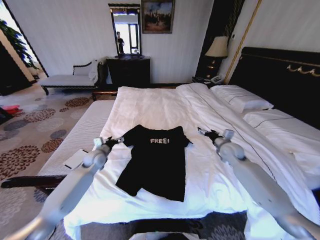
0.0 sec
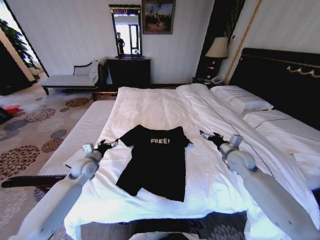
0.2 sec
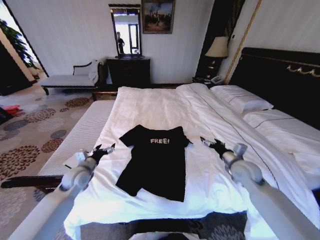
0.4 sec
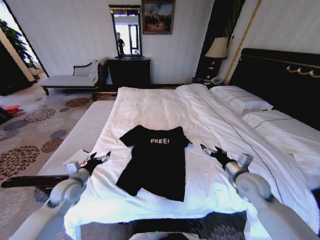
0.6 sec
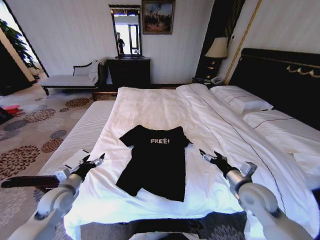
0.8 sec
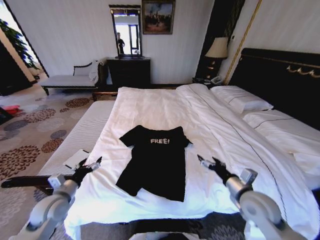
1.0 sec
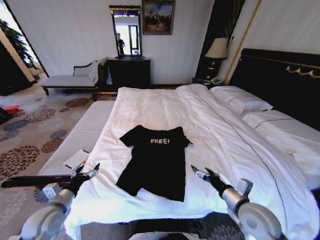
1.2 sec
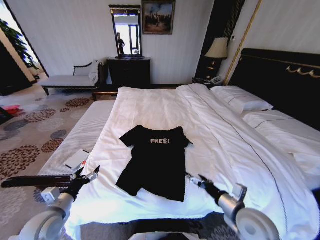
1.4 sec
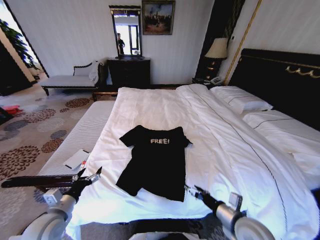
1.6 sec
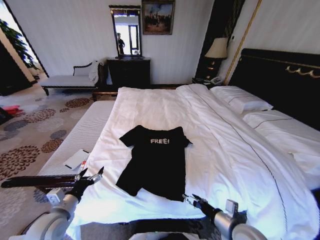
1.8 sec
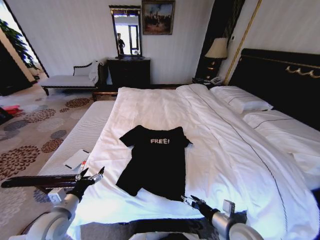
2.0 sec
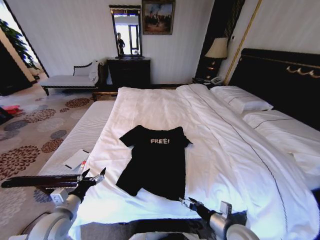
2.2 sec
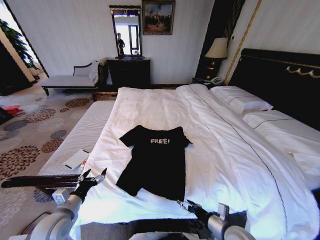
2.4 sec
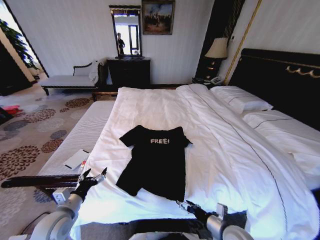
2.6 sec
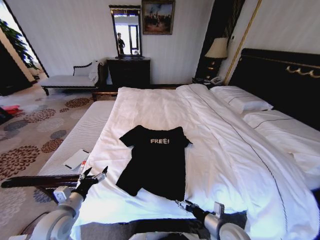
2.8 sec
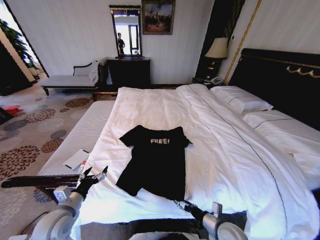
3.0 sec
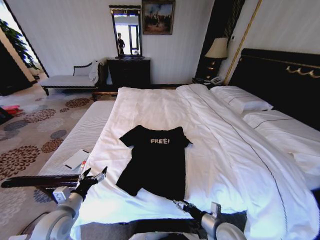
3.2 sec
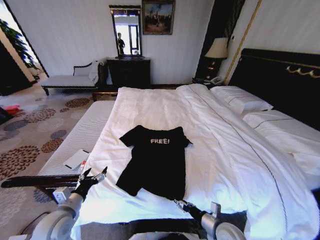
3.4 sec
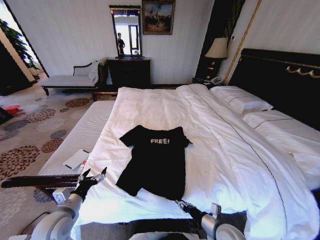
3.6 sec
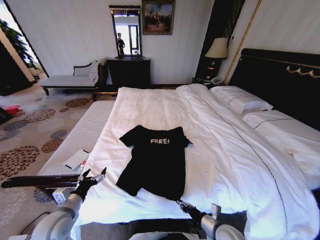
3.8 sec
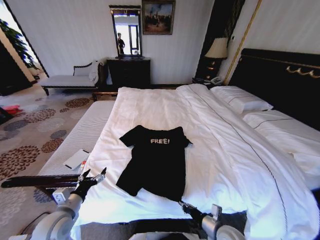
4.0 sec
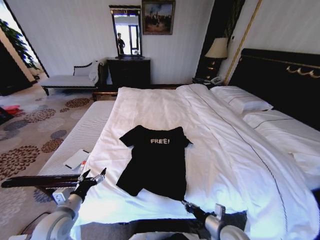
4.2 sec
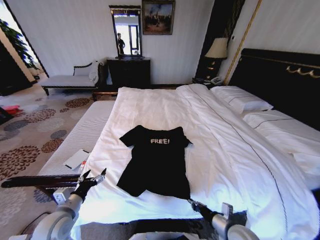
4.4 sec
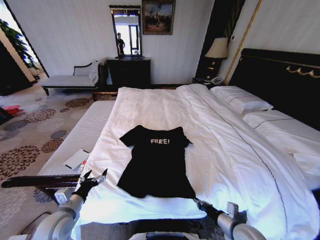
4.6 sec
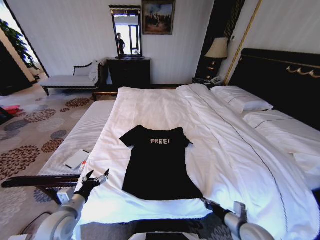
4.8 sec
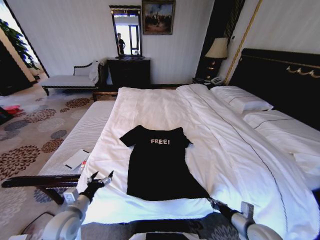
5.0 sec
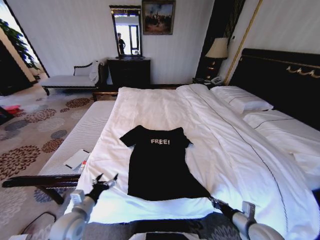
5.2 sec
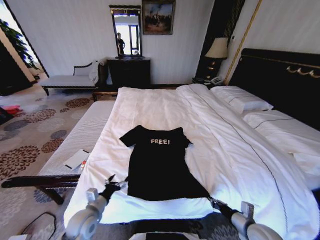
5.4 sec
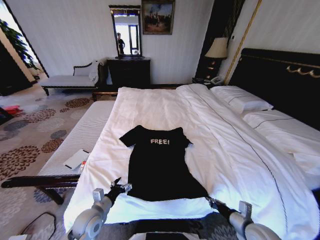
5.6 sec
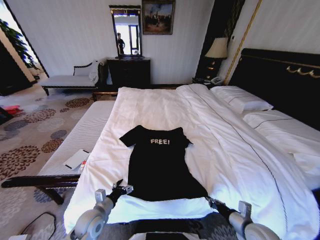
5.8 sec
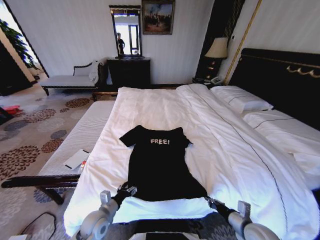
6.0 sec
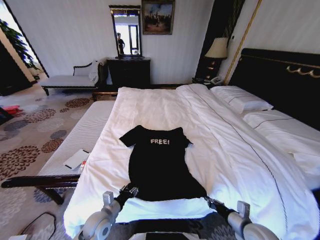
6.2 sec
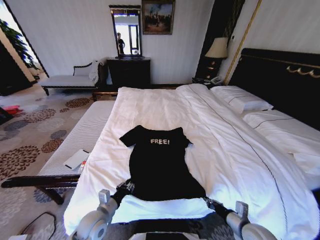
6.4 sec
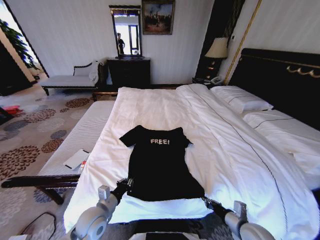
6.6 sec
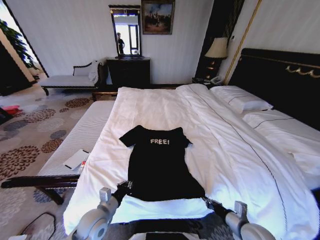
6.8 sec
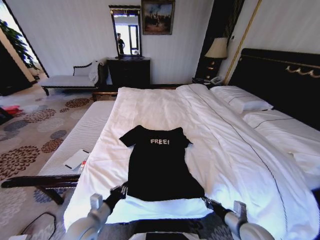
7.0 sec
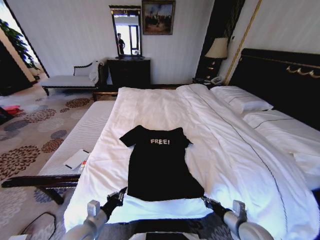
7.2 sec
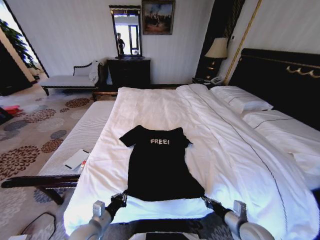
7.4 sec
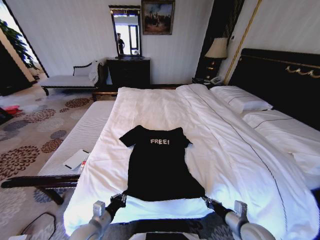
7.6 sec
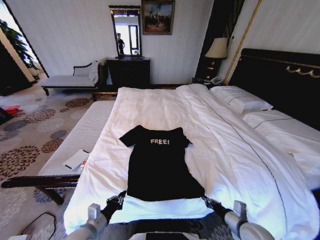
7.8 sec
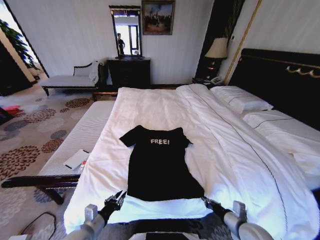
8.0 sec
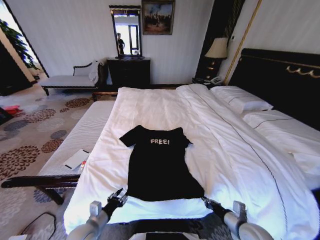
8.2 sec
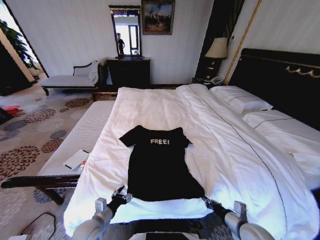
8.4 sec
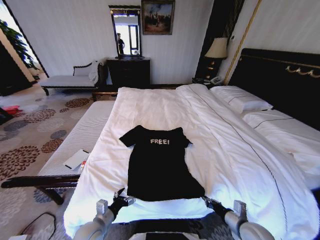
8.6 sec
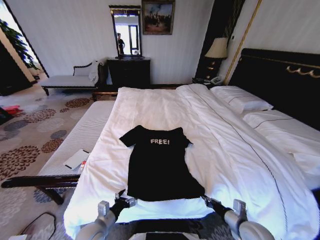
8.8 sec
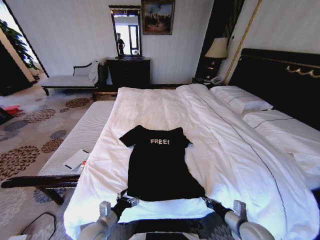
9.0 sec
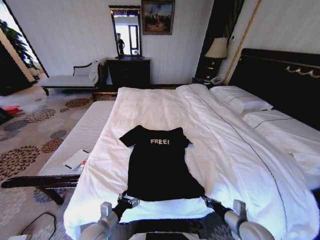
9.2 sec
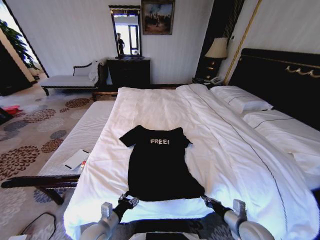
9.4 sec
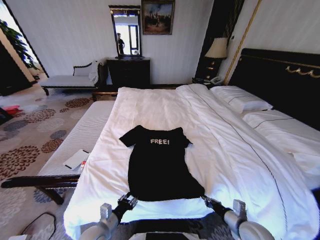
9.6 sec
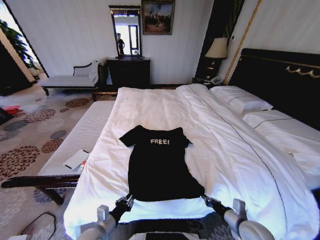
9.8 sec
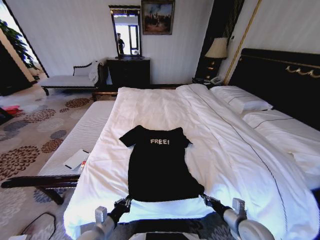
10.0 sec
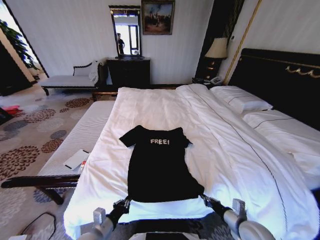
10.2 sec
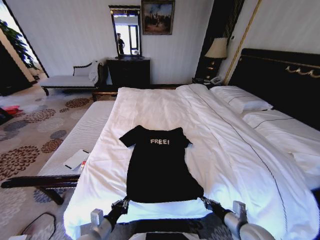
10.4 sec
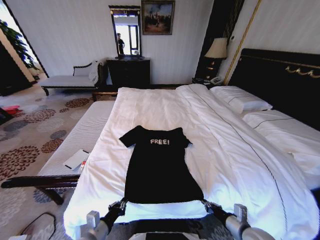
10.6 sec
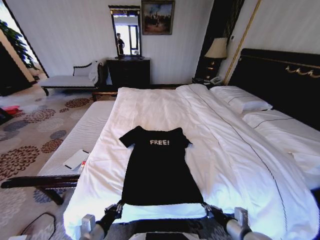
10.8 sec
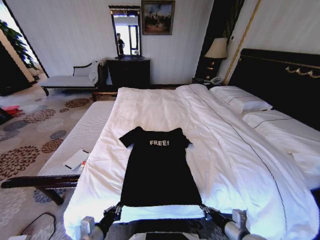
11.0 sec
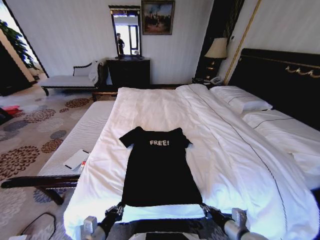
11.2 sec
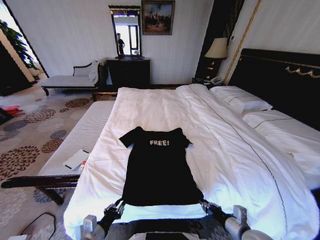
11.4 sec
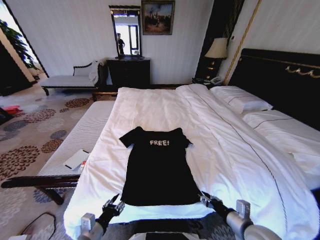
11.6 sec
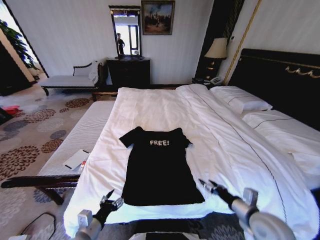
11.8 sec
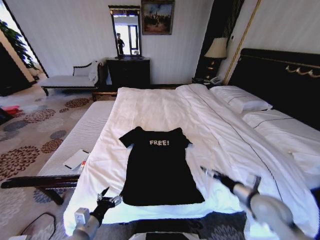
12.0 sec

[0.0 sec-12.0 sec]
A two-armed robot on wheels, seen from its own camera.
Task of the whole recording: Fold the clothes on the bed.
0.0 sec to 1.6 sec: Both grippers move backward, some 25 cm.
1.6 sec to 3.0 sec: The right gripper shifts about 10 cm downward.
3.0 sec to 4.4 sec: The right gripper closes up.
4.4 sec to 6.0 sec: The right gripper heads to the right, covering approximately 5 cm, while the left gripper moves to the right and downward, roughly 15 cm.
6.0 sec to 7.6 sec: The left gripper moves about 5 cm, and closes.
7.6 sec to 9.0 sec: The left gripper opens its fingers.
9.0 sec to 10.4 sec: The left gripper closes up.
10.4 sec to 12.0 sec: The right gripper goes approximately 10 cm upward and forward, and opens its fingers; the left gripper opens.

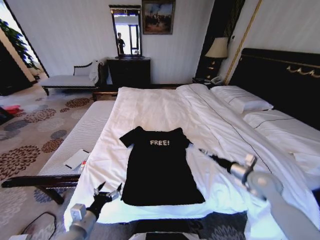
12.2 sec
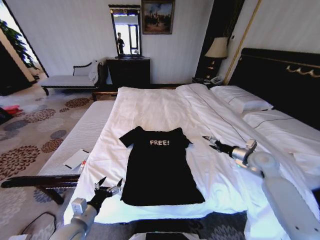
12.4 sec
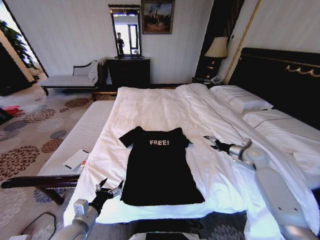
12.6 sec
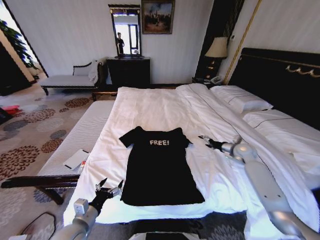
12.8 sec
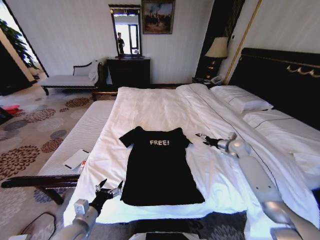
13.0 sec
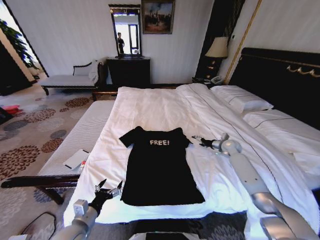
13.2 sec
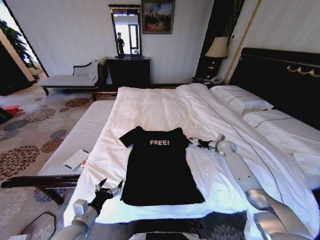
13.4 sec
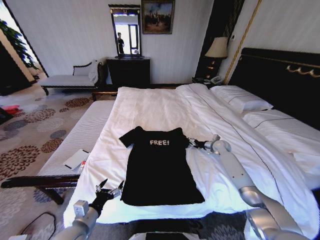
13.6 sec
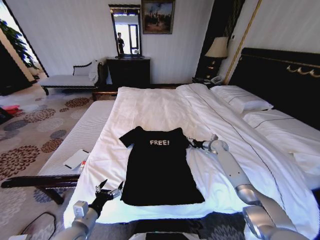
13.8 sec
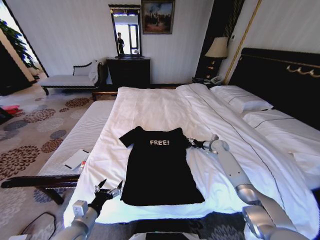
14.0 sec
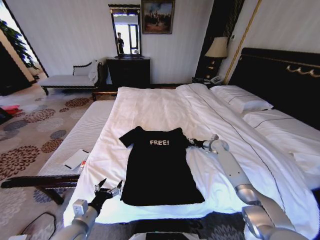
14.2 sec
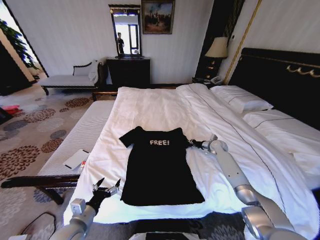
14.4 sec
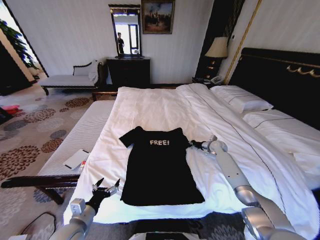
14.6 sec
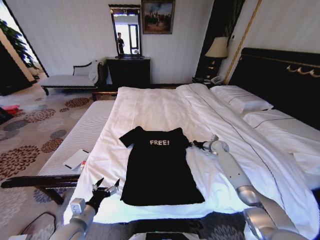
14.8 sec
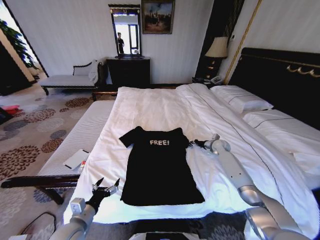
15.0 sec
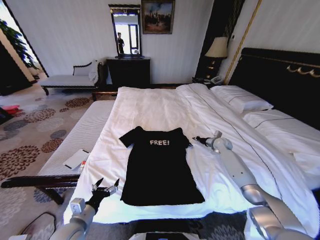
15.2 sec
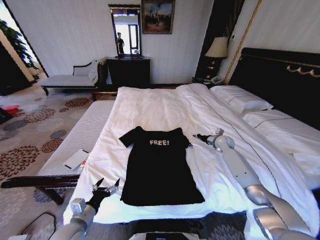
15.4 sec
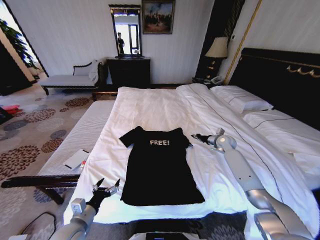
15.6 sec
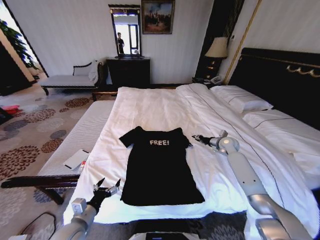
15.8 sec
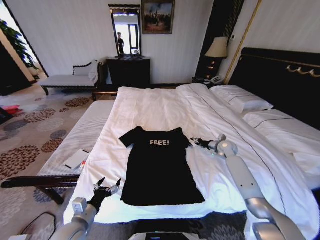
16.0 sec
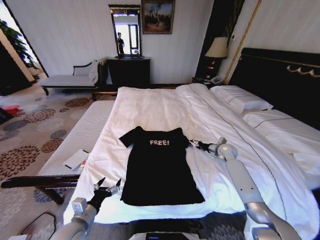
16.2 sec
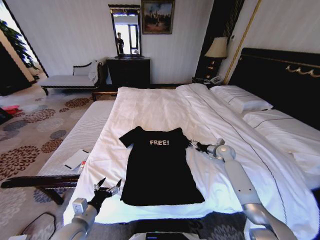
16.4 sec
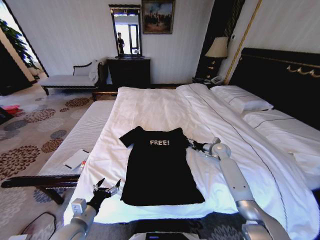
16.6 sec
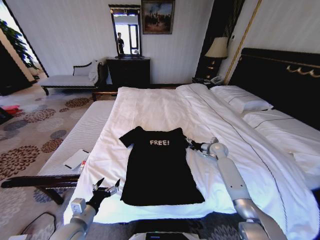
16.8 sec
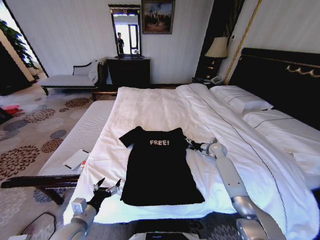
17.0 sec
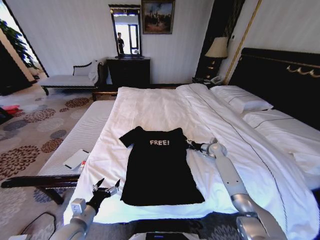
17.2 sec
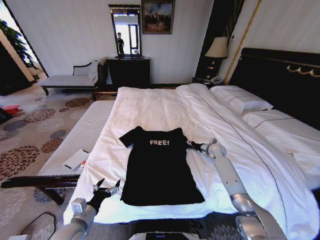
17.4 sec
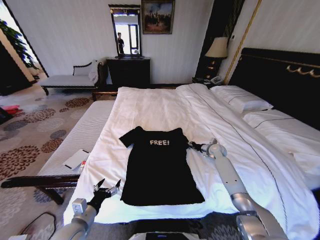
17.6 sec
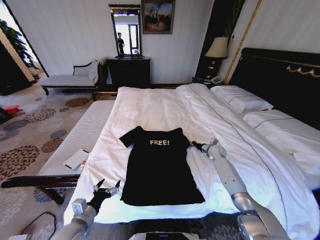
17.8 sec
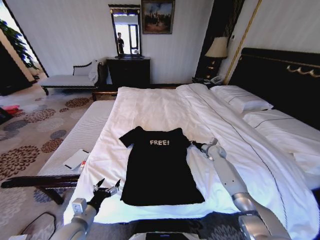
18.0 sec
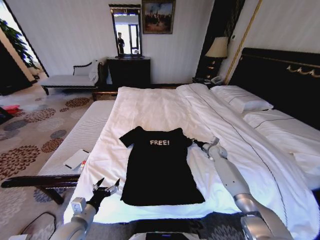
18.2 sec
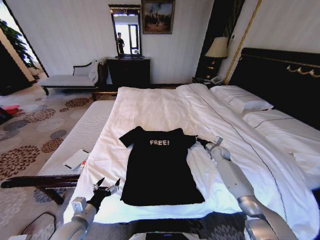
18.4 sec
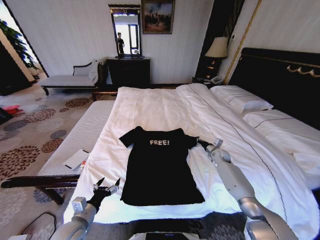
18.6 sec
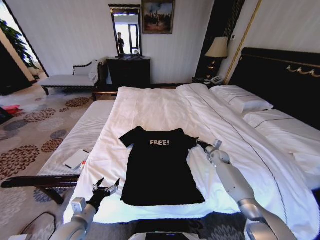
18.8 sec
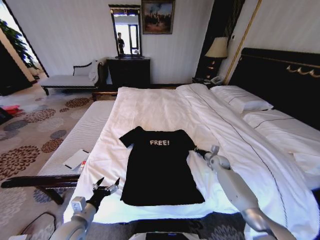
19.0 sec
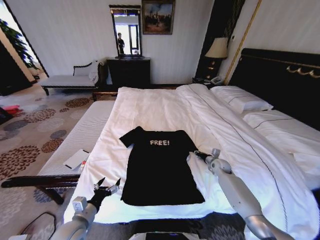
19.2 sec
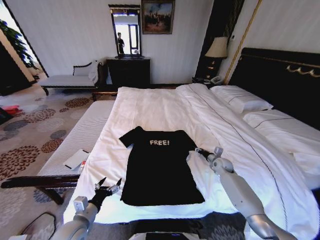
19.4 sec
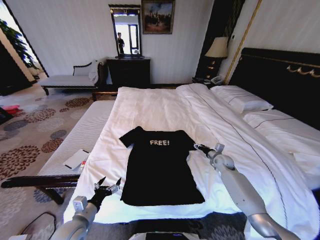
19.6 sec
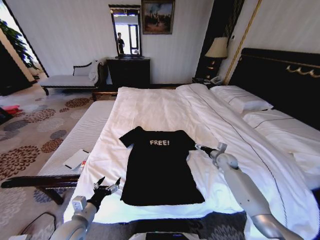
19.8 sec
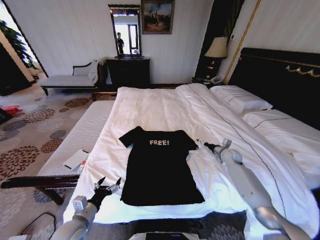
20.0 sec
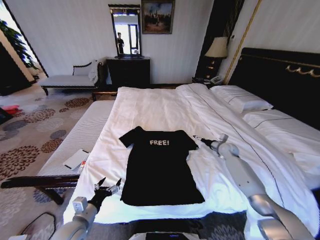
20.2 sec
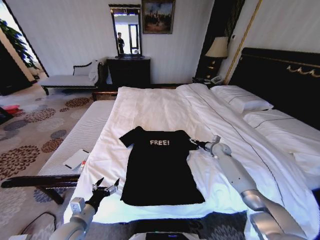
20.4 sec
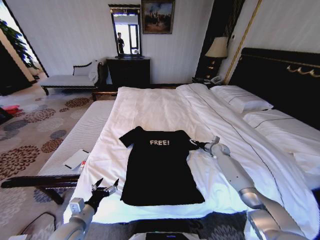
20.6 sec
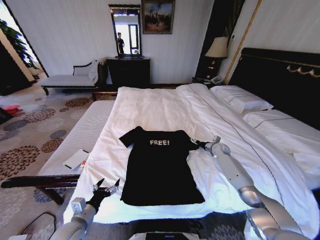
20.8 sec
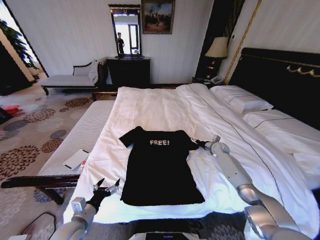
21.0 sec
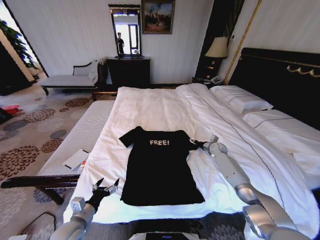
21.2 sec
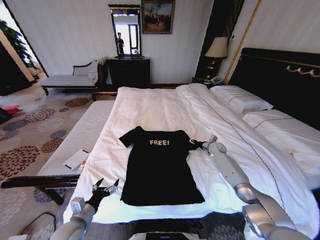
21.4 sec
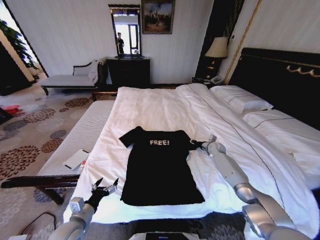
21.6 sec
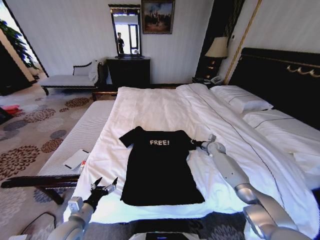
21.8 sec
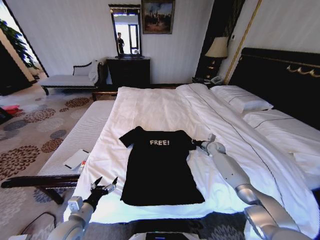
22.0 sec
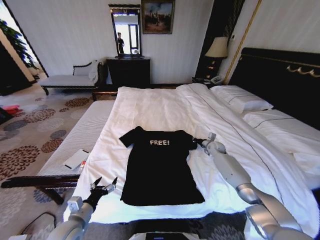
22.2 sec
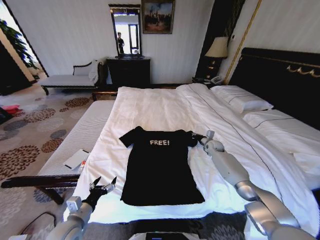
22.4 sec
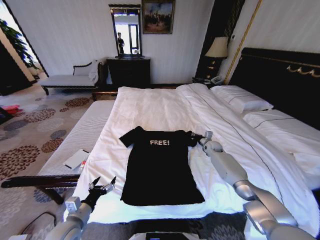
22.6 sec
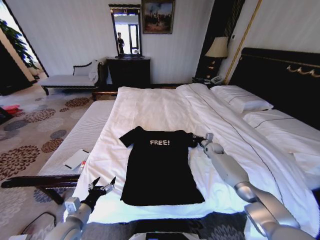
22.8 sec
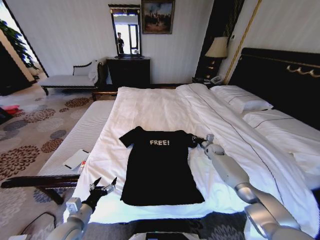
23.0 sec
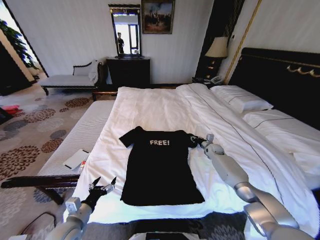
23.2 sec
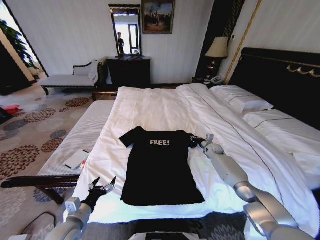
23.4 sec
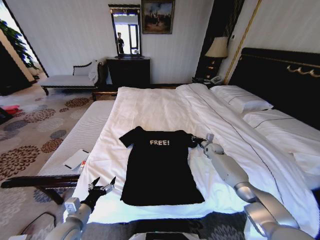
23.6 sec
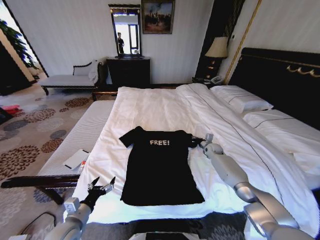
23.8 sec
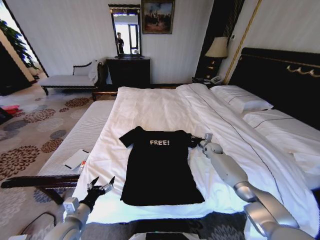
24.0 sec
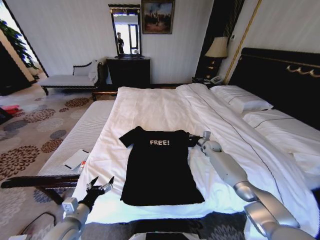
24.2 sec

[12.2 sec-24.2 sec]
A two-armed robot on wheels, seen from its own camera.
Task of the whole recording: Fold the clothes on the bed.
12.2 sec to 13.8 sec: The right gripper moves forward and downward, some 25 cm.
13.8 sec to 15.2 sec: The right gripper closes.
15.2 sec to 16.6 sec: The right gripper moves about 5 cm, and opens.
16.6 sec to 18.2 sec: The right gripper closes up.
18.2 sec to 19.8 sec: The right gripper shifts roughly 5 cm backward, and opens up.
19.8 sec to 21.2 sec: The right gripper goes about 10 cm forward.
21.2 sec to 22.6 sec: The right gripper closes up.
22.6 sec to 24.2 sec: The right gripper opens, then closes once more.
